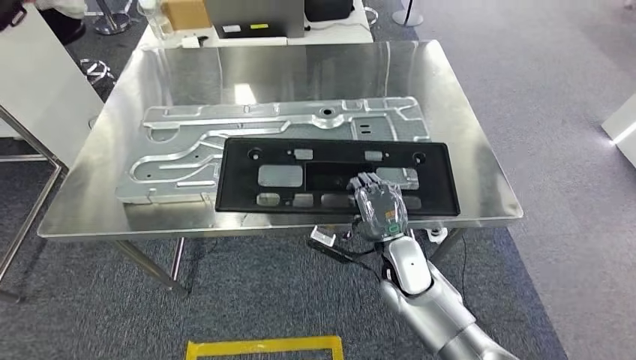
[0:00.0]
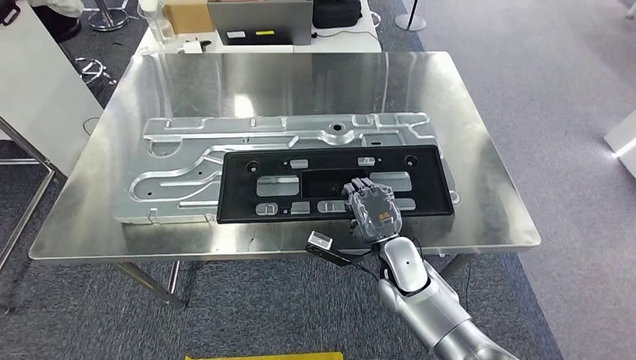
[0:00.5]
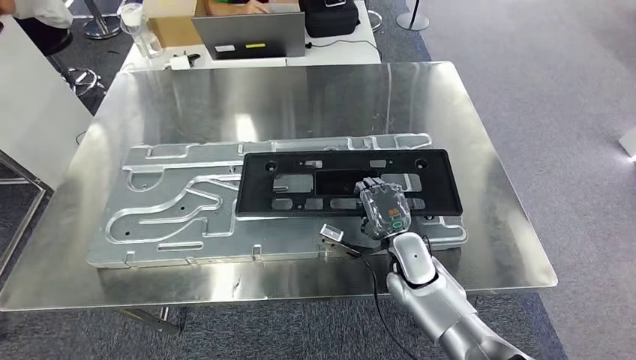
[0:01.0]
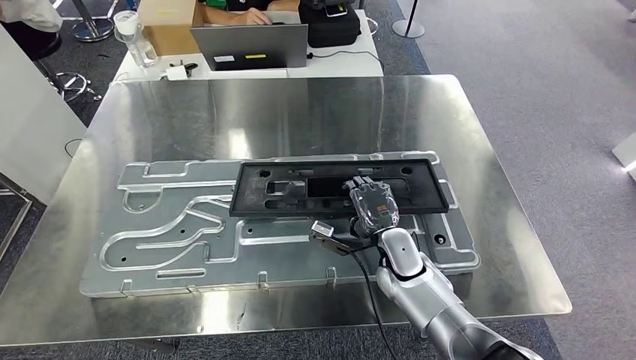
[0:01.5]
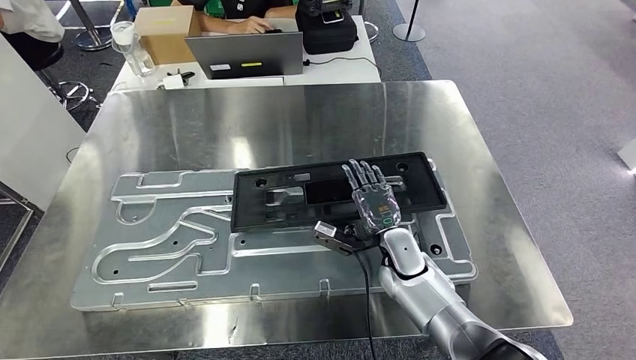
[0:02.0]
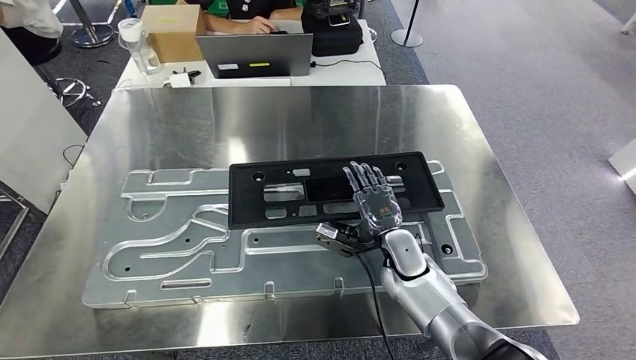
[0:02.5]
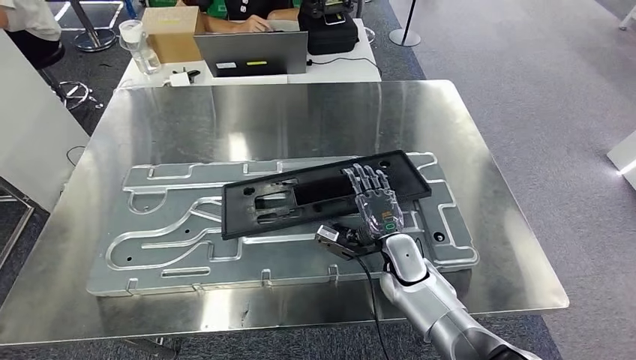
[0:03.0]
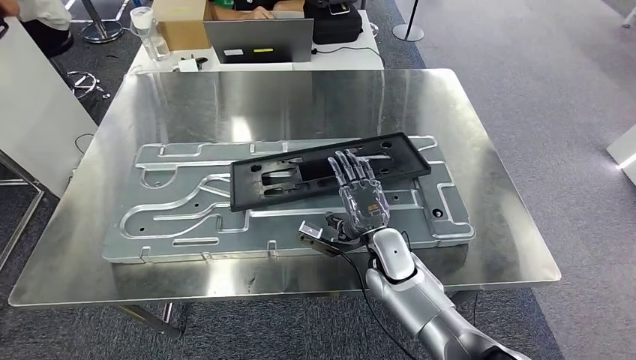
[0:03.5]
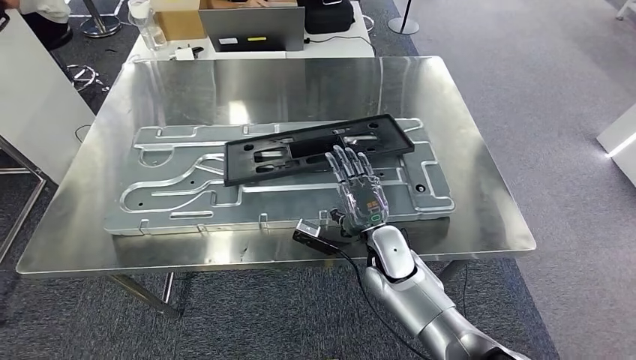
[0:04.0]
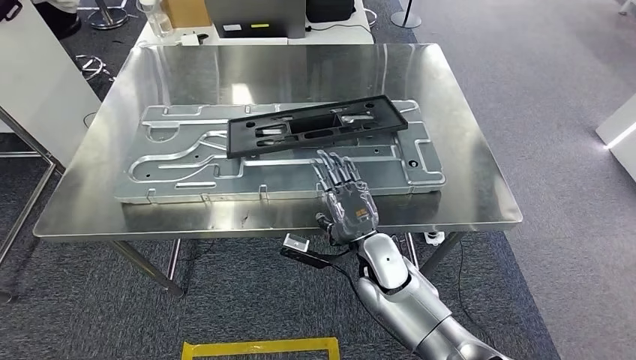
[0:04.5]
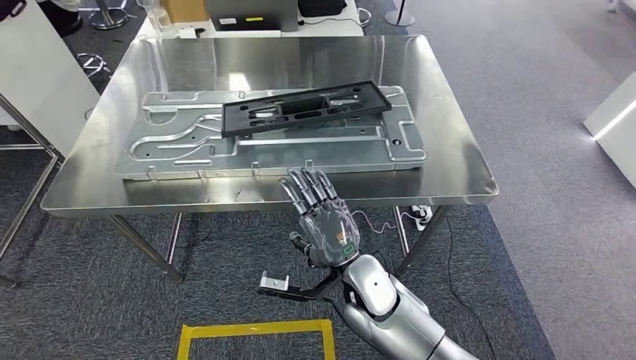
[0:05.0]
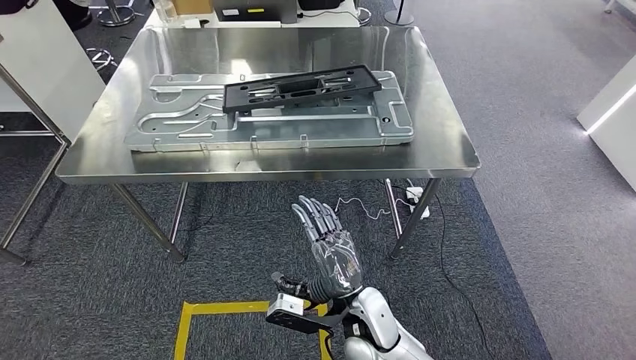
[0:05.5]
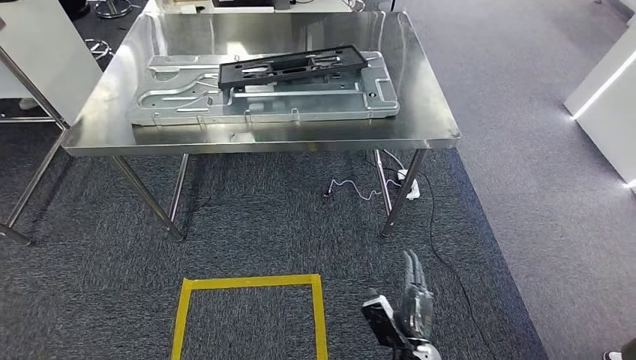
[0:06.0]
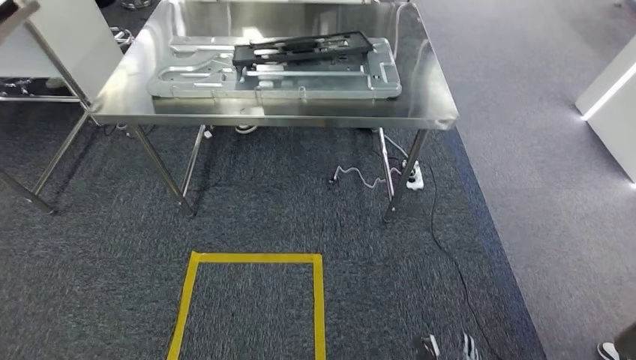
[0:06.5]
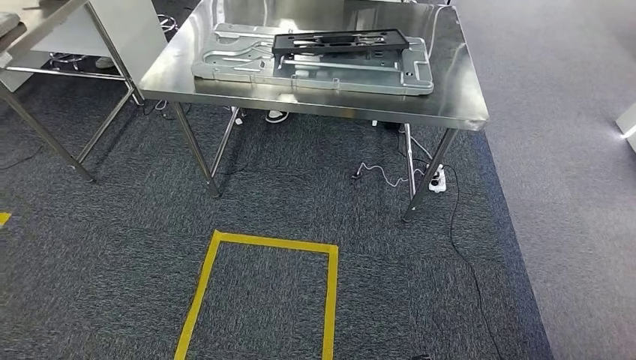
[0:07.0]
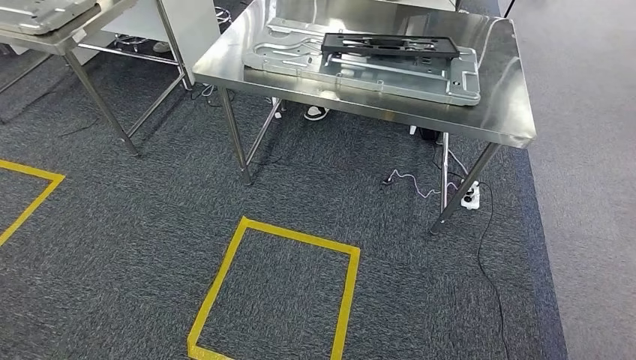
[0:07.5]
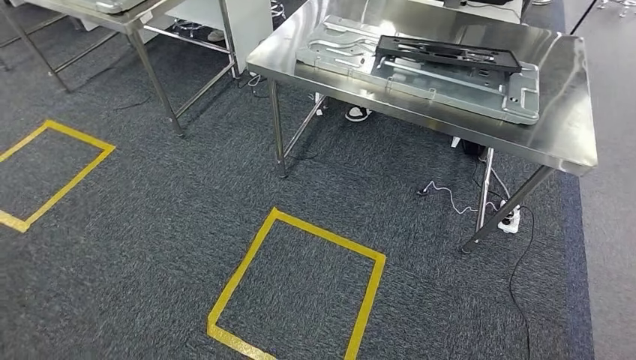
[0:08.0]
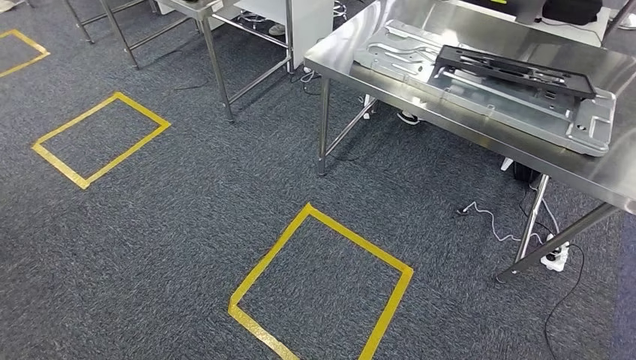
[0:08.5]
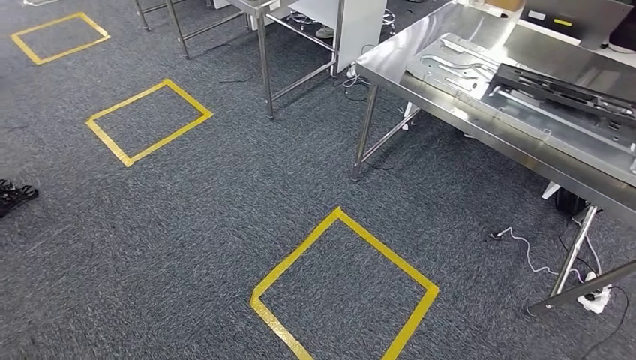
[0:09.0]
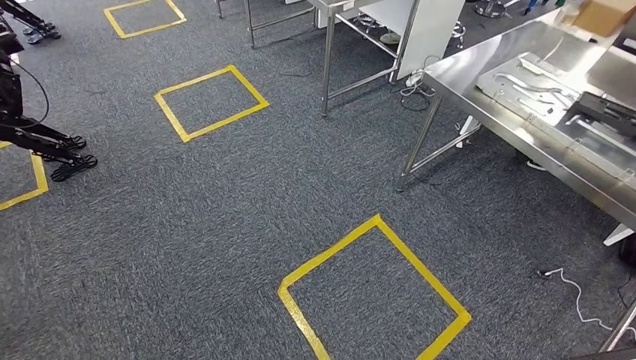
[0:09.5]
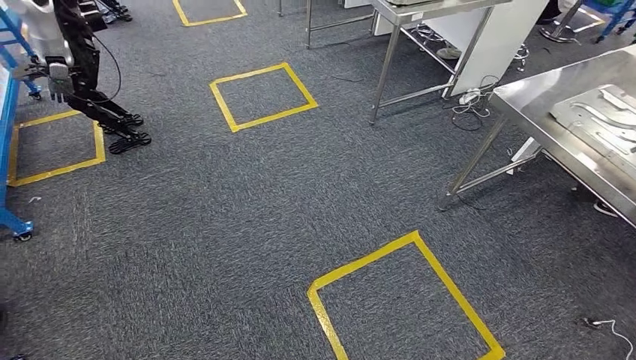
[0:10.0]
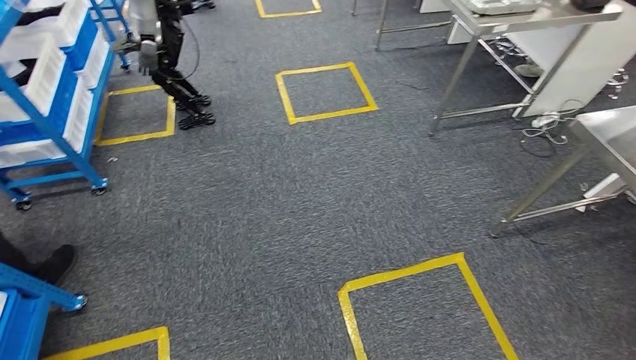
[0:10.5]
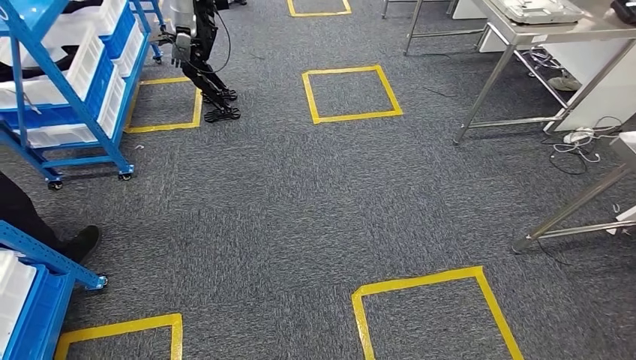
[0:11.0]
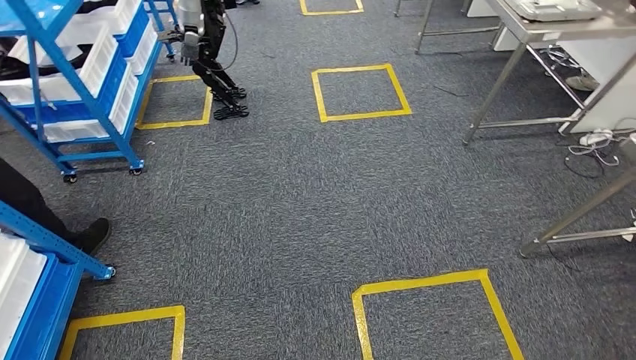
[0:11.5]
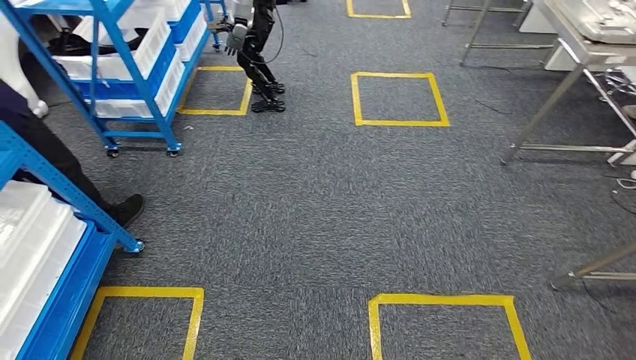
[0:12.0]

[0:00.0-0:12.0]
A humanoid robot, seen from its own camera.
Step, 0:00.0 to 0:07.5: Insert the large material into the corresponding slot on the workbench.

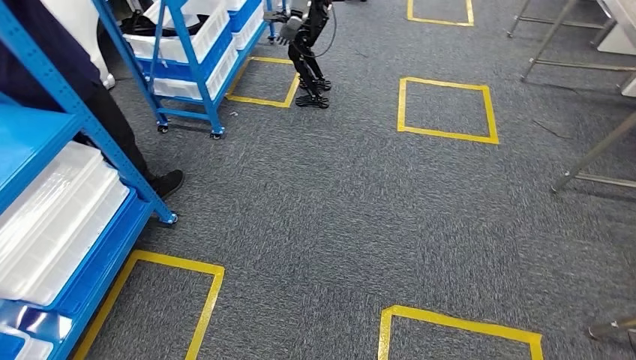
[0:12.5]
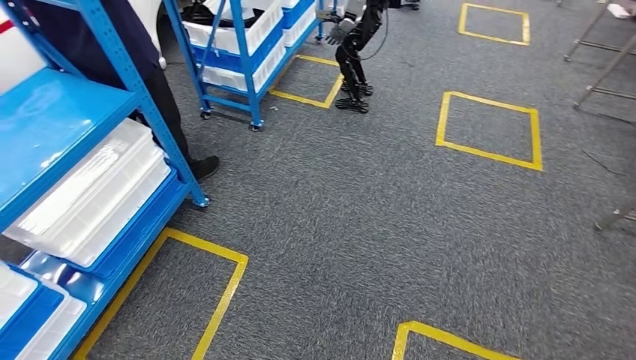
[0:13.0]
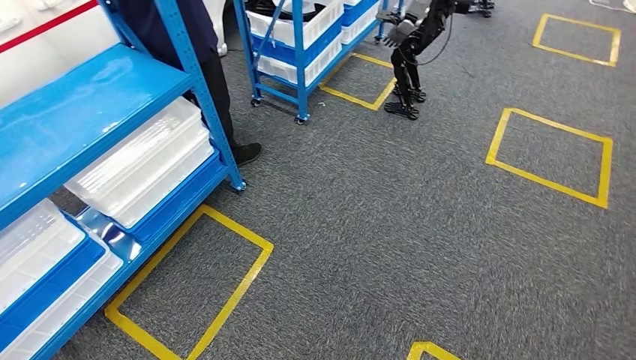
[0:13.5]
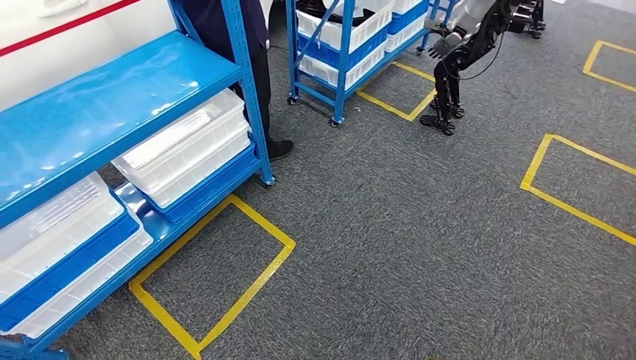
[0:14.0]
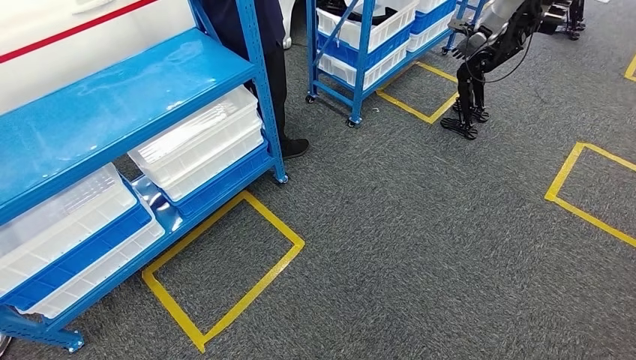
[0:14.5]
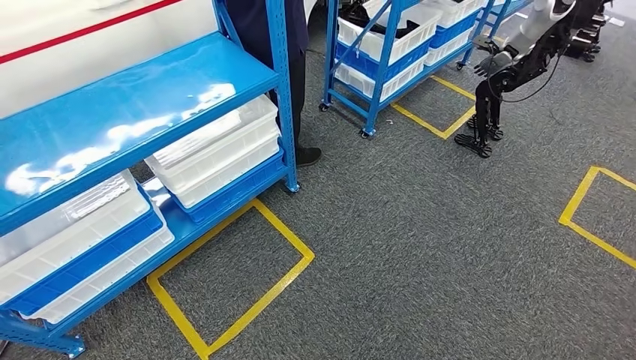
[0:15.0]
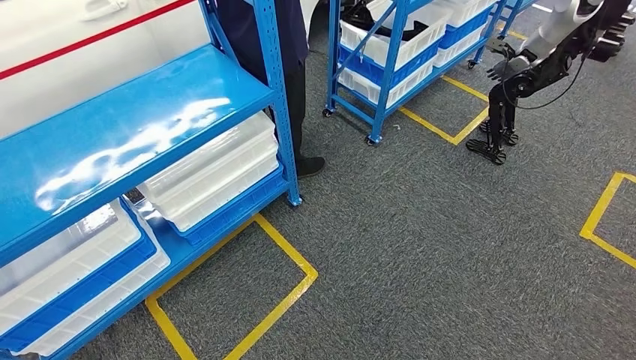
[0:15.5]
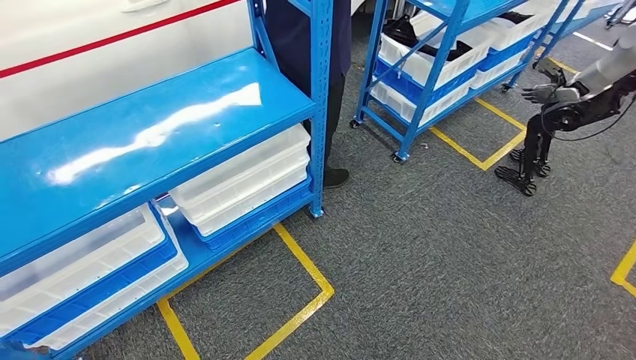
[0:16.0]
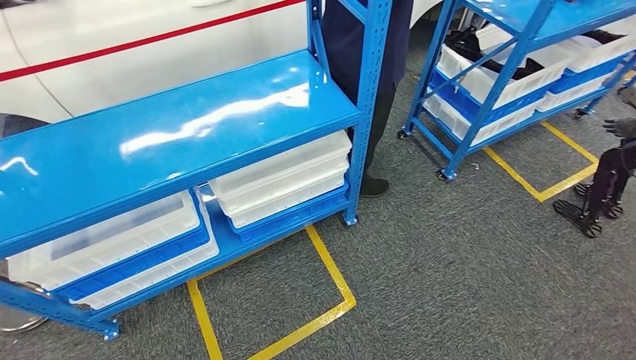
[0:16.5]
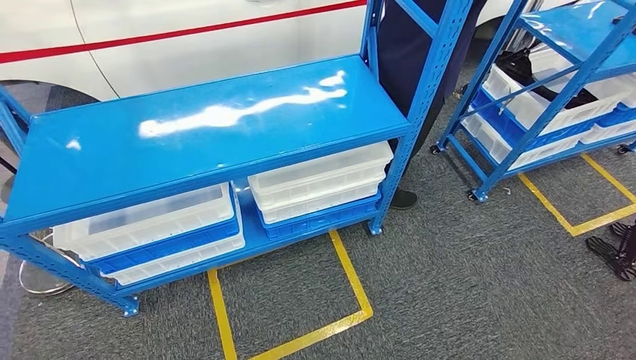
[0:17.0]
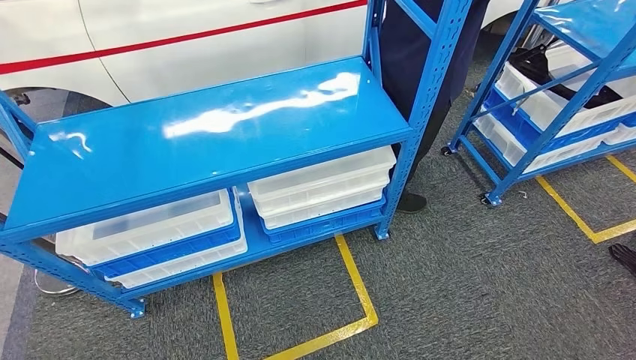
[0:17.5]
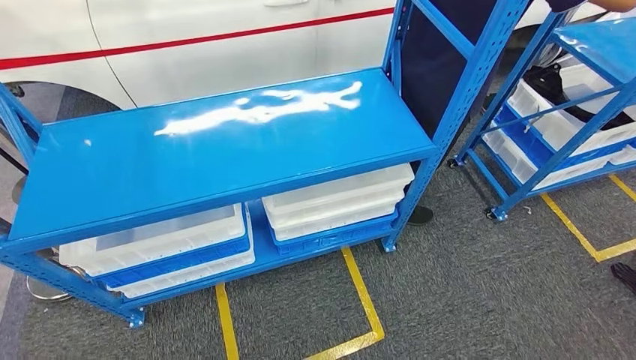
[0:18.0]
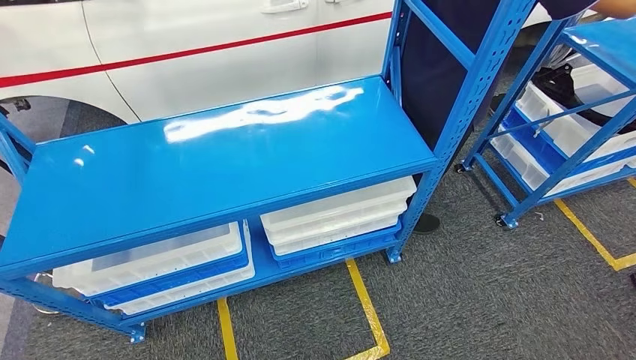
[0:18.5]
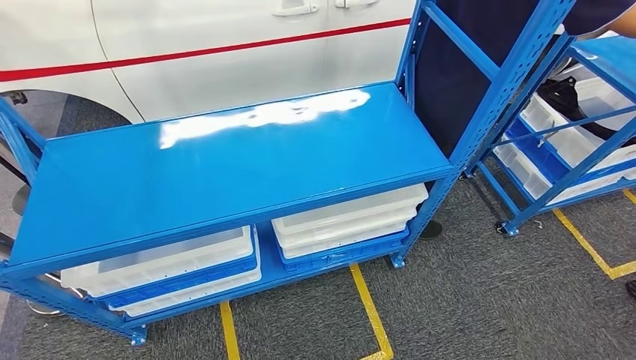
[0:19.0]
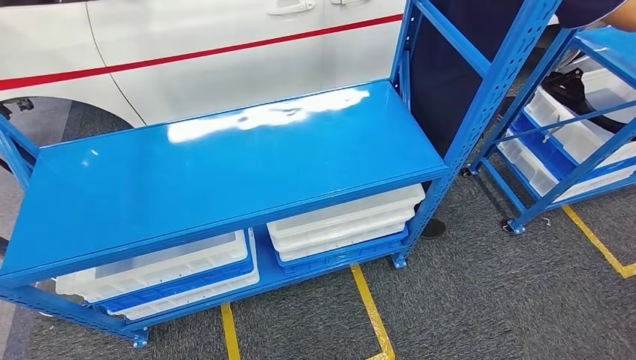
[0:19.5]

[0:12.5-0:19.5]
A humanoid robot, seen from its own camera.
Step, 0:12.5 to 0:19.5: Move to the initial position of the shelf.
